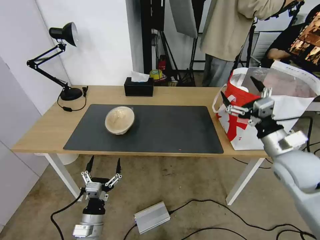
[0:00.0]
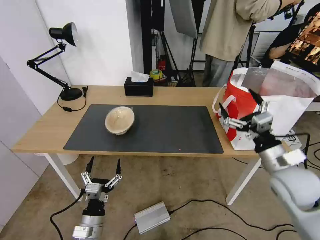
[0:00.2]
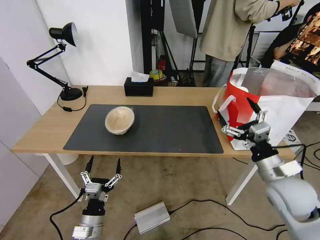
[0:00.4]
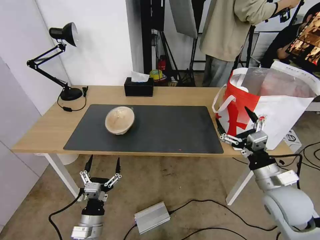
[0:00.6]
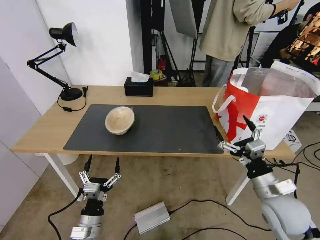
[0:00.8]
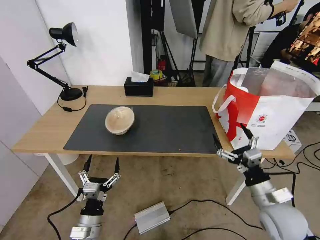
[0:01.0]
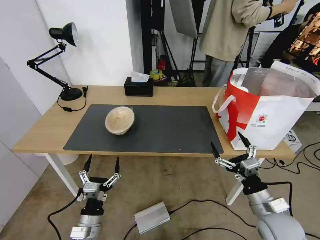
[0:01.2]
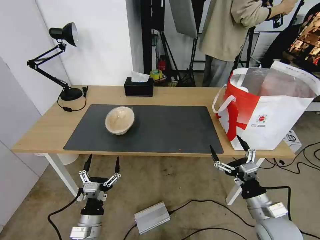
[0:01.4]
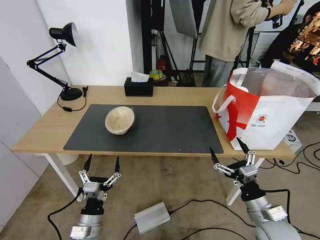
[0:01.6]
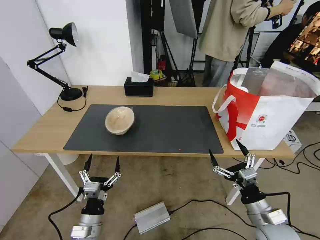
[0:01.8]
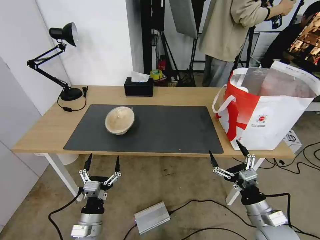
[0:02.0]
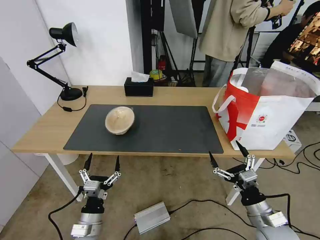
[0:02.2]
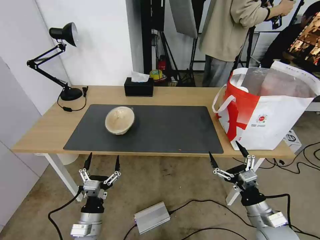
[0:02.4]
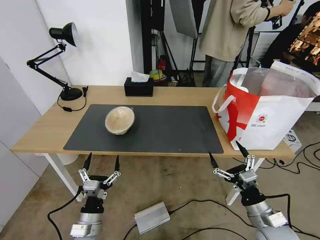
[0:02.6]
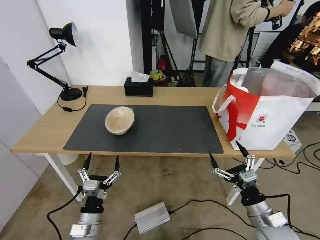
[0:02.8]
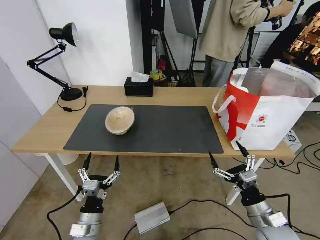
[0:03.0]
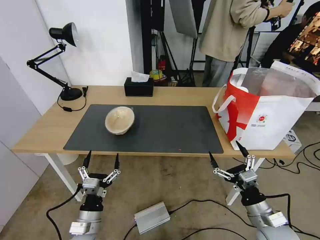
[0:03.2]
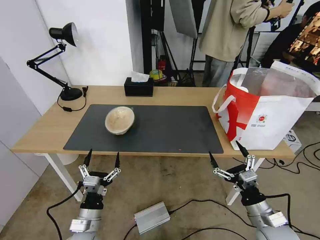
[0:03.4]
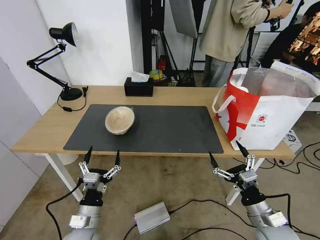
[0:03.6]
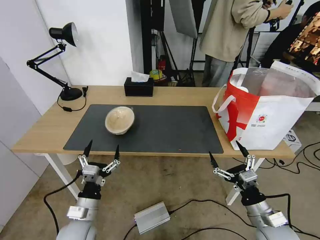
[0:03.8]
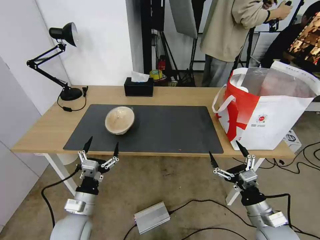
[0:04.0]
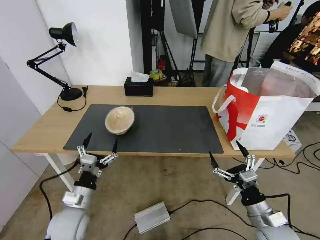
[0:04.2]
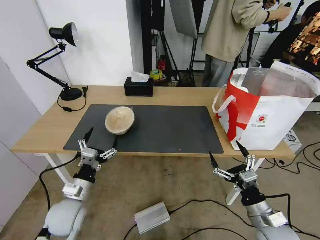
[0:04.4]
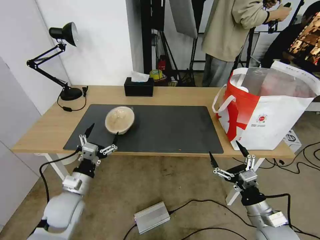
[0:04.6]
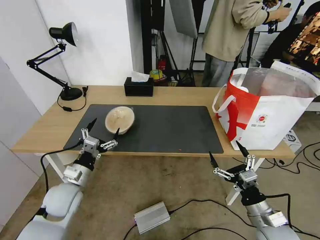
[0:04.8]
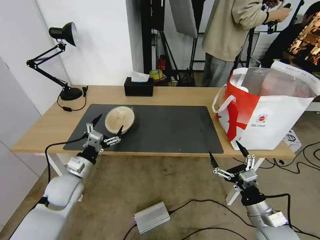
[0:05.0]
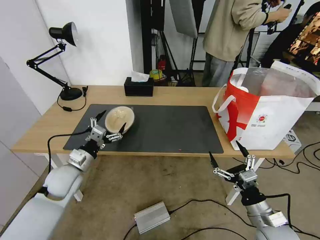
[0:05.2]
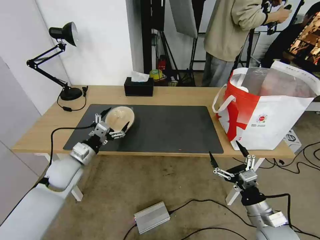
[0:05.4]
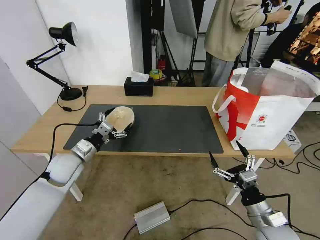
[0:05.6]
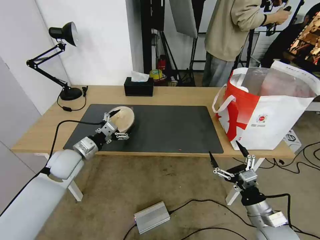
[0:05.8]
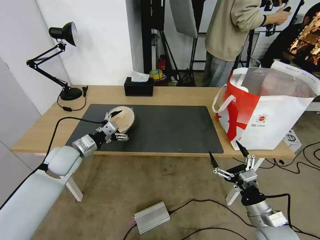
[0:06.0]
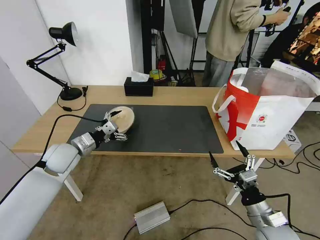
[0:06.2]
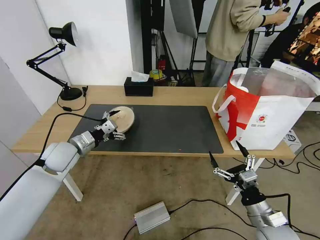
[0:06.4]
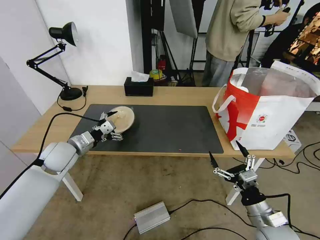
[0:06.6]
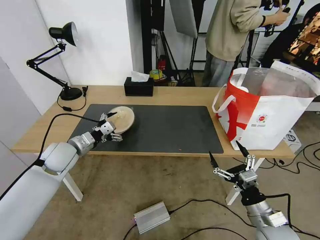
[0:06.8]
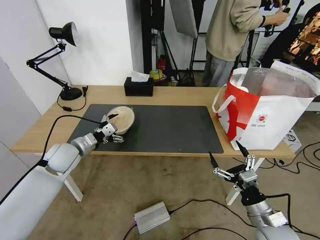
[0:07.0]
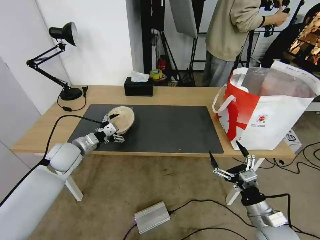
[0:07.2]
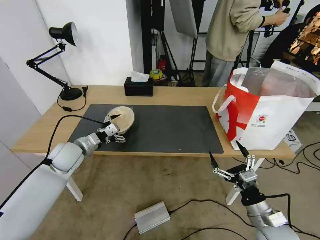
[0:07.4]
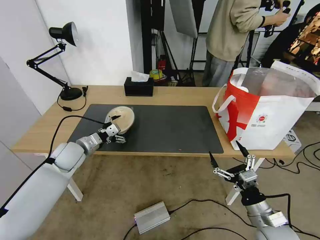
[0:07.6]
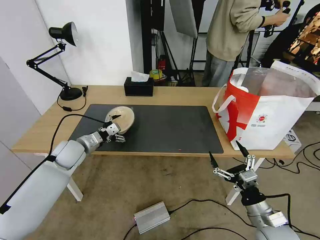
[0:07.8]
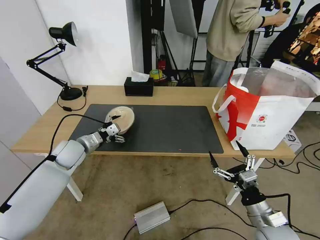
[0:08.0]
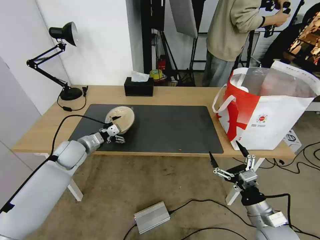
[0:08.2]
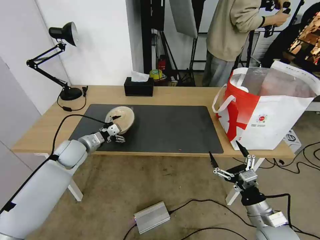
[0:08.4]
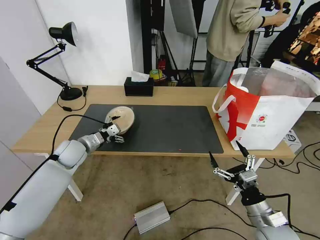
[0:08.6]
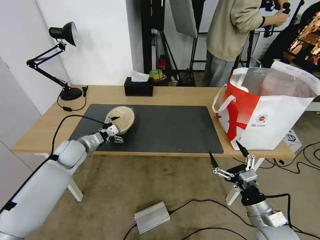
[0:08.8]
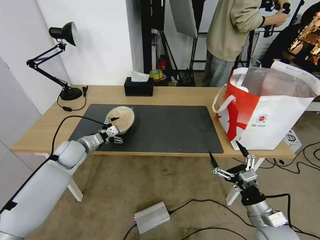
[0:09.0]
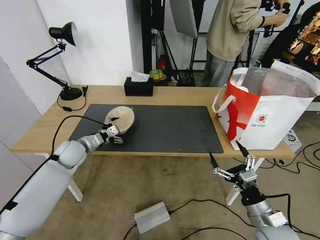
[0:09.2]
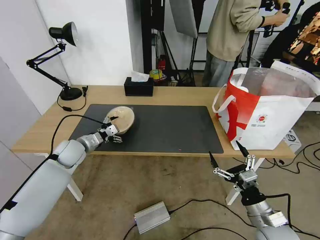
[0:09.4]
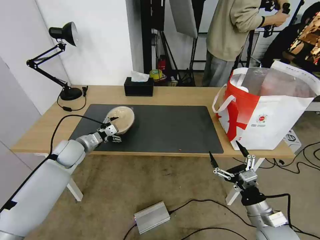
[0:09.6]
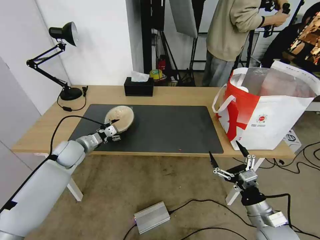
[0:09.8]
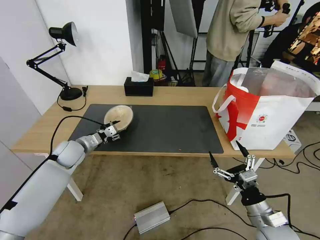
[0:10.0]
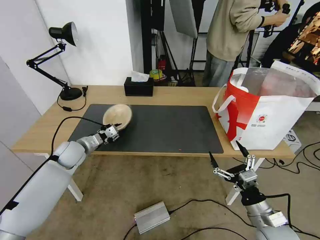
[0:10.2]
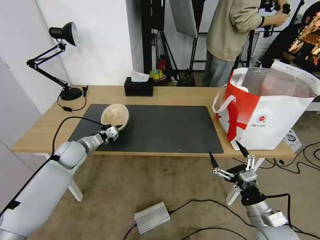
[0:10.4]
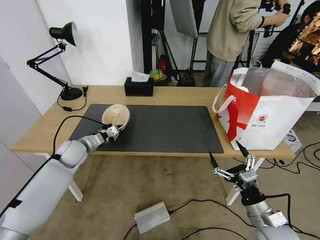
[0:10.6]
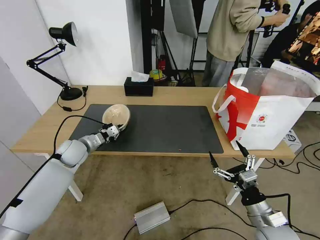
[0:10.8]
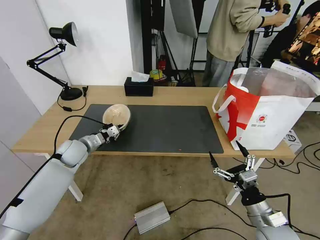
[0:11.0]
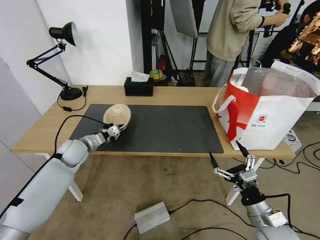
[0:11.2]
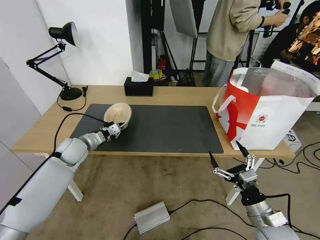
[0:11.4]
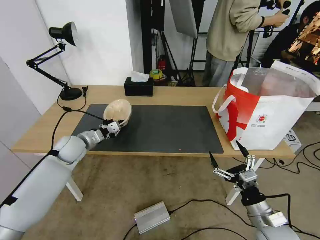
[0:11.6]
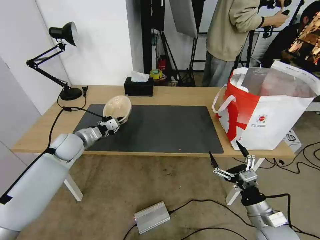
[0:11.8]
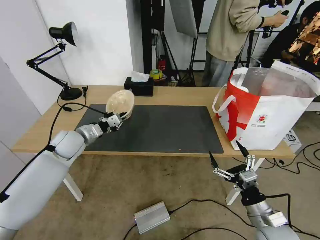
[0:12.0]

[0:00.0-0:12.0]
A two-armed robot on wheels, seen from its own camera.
Task of the whole recording: Pick up the trash from the table and place it into the takeout bag.
0:00.0 to 0:01.6: The right gripper moves downward and backward, approximately 20 cm.
0:01.6 to 0:03.0: Both grippers stay put.
0:03.0 to 0:04.4: The left gripper is displaced forward, upward and to the left by approximately 10 cm.
0:04.4 to 0:06.0: The left gripper travels forward and upward by about 15 cm.
0:06.0 to 0:09.0: The grippers stay close to where they were, moving slightly.
0:09.0 to 0:10.4: The left gripper closes its fingers.
0:10.4 to 0:12.0: The left gripper shifts some 5 cm upward.

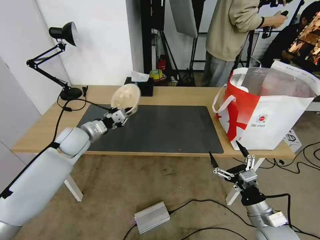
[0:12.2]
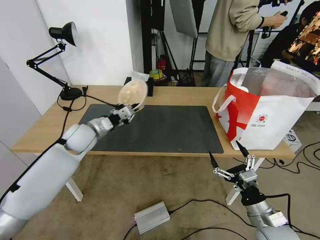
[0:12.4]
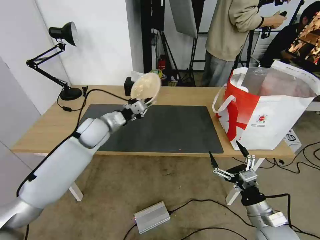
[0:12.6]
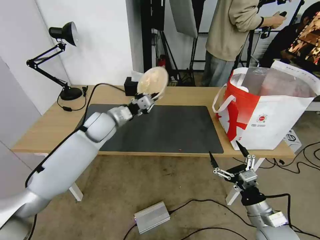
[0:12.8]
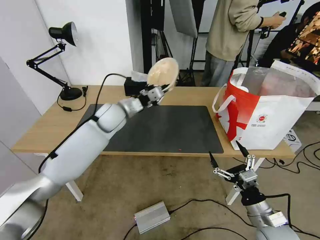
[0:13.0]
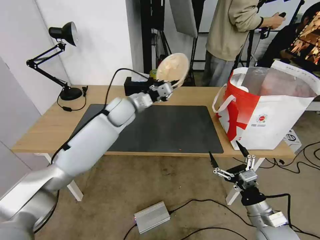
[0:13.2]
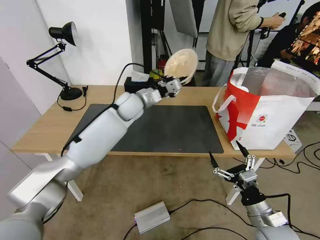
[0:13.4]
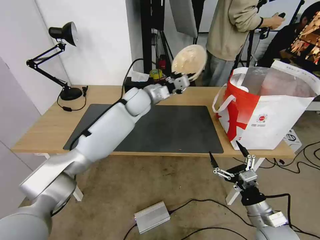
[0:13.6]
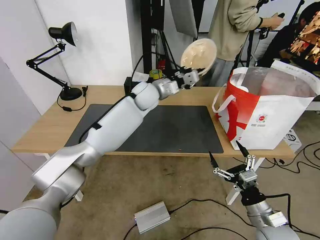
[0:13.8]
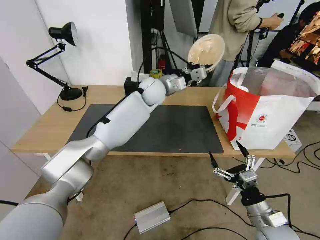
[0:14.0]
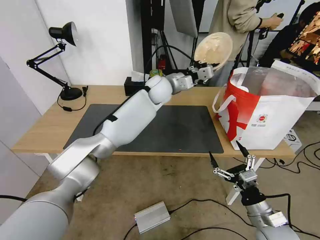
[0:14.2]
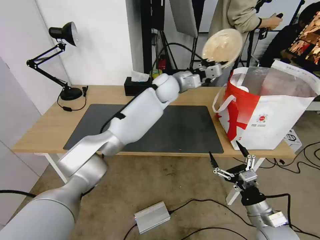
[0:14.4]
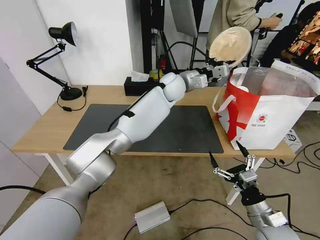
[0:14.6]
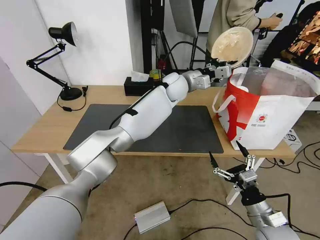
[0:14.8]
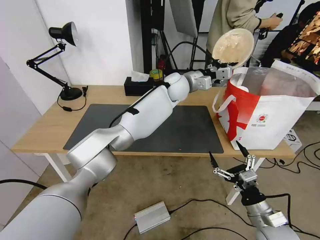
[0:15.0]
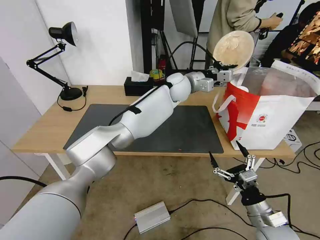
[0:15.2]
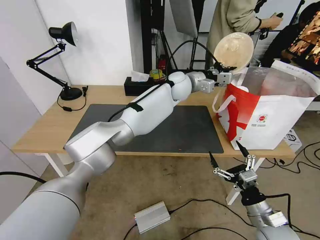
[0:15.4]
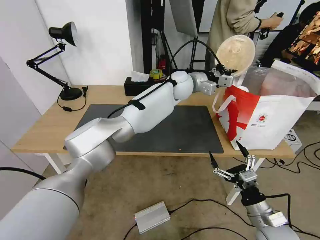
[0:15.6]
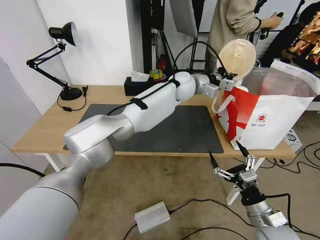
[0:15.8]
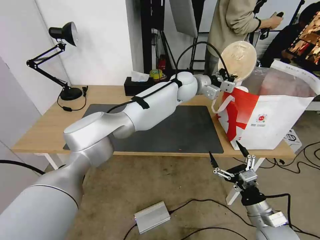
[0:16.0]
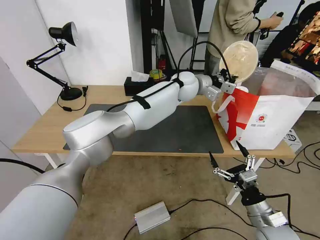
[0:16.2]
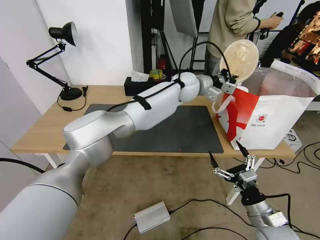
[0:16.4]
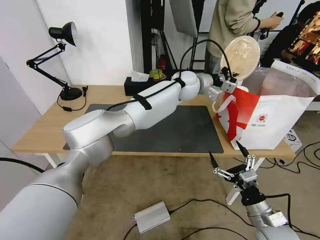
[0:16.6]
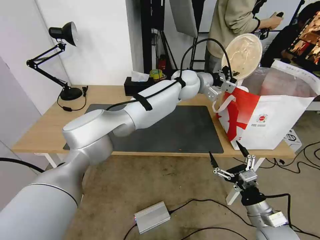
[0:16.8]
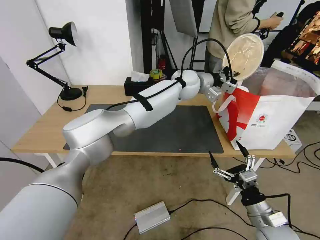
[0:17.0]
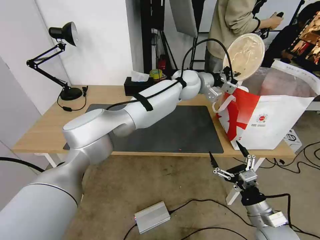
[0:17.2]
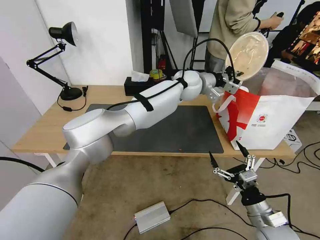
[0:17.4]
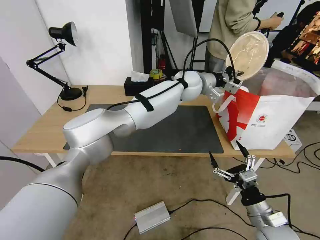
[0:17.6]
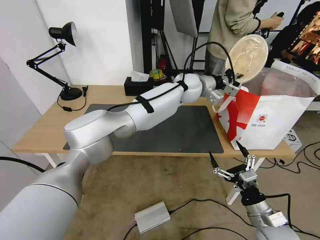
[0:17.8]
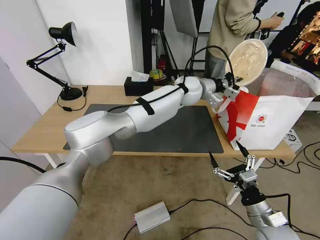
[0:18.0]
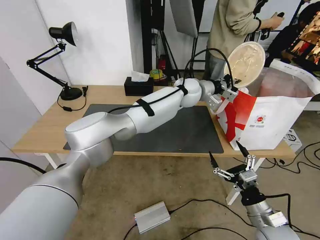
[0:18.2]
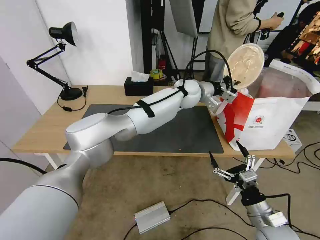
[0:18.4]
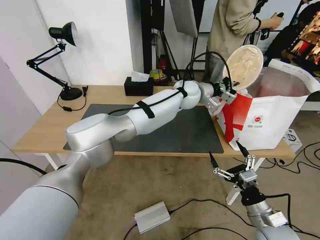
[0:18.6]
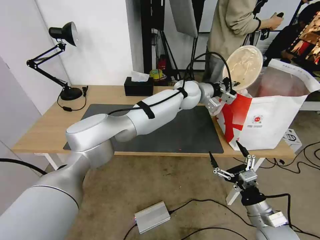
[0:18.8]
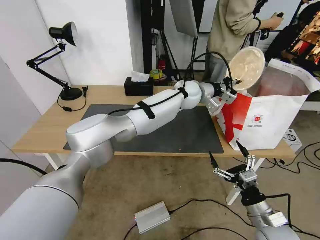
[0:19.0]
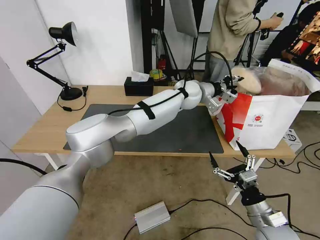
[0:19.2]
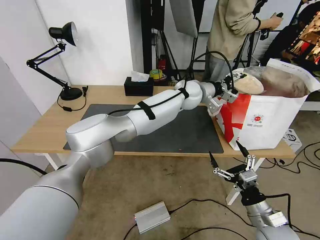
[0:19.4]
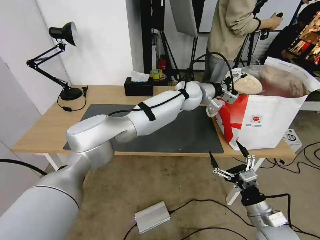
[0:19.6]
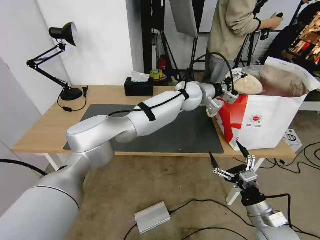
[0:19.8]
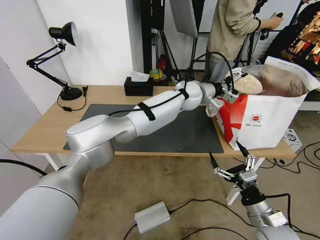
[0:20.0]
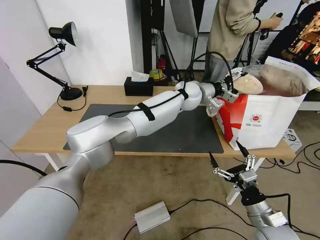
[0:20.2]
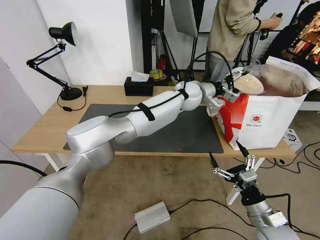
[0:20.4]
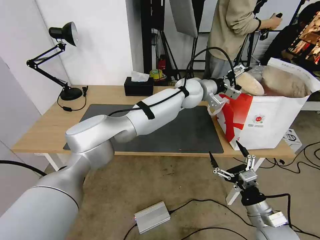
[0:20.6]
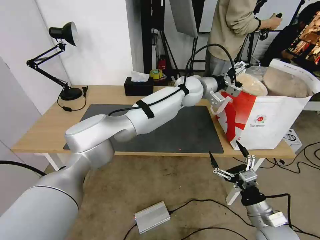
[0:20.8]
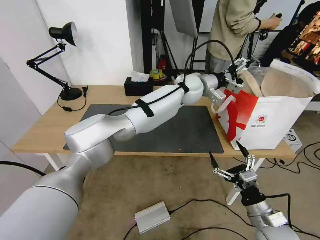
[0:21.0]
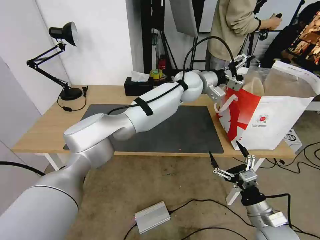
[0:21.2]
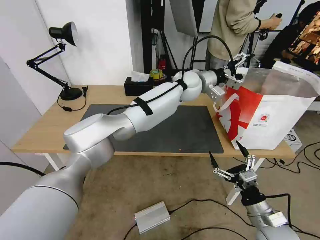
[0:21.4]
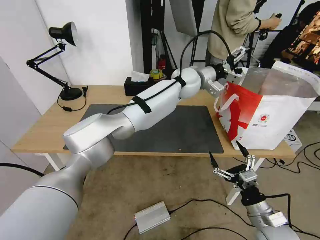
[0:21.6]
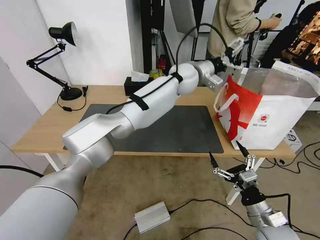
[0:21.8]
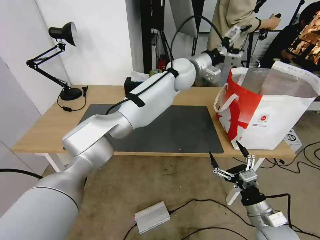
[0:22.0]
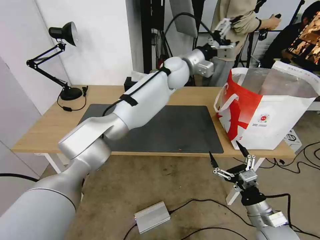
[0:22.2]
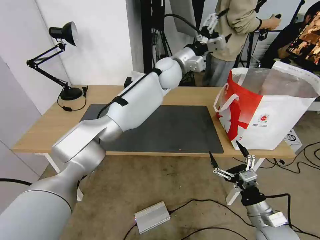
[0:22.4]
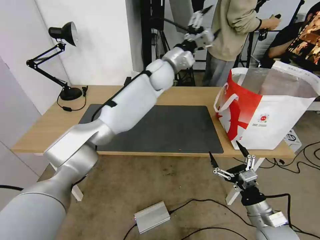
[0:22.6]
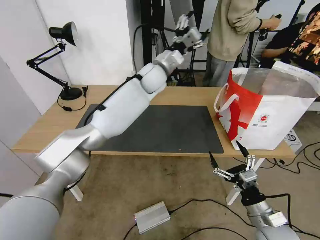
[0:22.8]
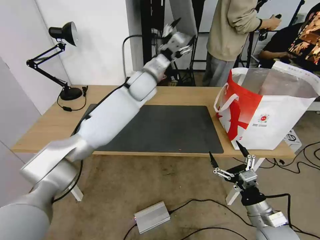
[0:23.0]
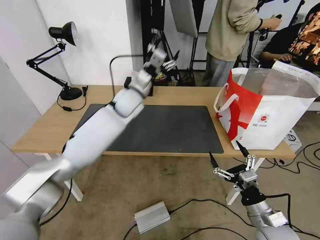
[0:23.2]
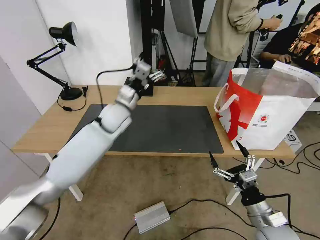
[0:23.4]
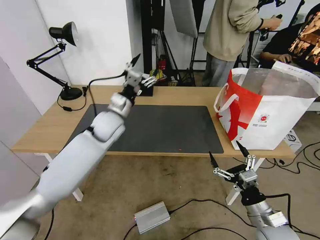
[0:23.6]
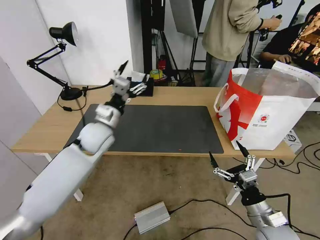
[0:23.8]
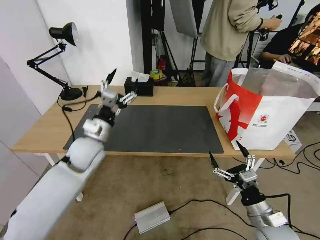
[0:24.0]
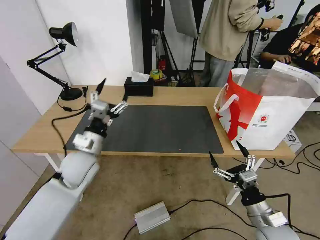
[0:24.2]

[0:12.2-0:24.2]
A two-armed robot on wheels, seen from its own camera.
Task of the whole recording: Pick up the trash from the table and place it into the takeout bag.
0:12.2 to 0:13.8: The left gripper moves to the right and forward, some 30 cm.
0:13.8 to 0:15.2: The left gripper is displaced to the right by some 10 cm.
0:16.6 to 0:18.2: The grippers stay close to where they were, moving slightly.
0:18.2 to 0:19.8: The left gripper opens up.
0:19.8 to 0:21.2: There are only small adjustments of the grippers.
0:21.2 to 0:22.6: The left gripper heads to the left, covering roughly 10 cm.
0:22.6 to 0:24.2: The left gripper is displaced backward, to the left and downward by approximately 40 cm.
